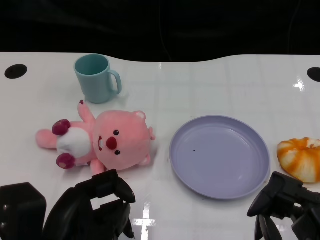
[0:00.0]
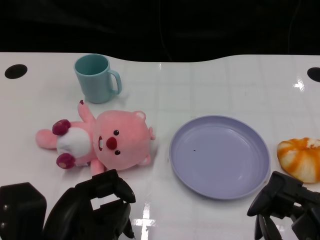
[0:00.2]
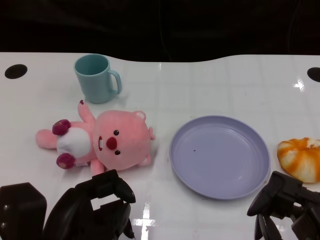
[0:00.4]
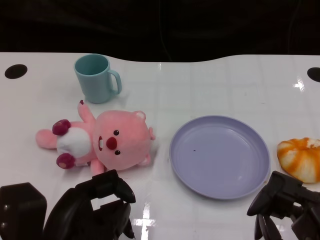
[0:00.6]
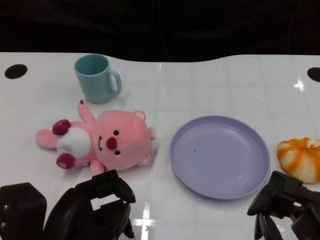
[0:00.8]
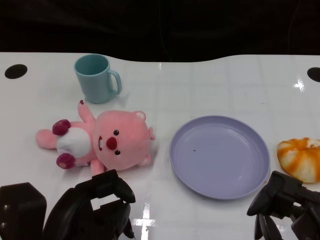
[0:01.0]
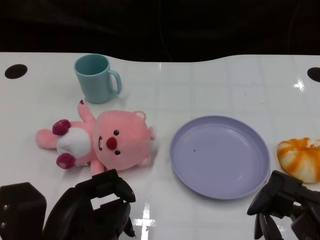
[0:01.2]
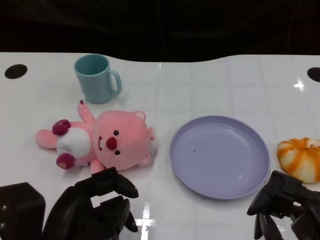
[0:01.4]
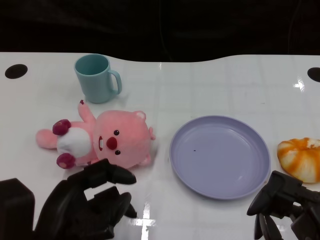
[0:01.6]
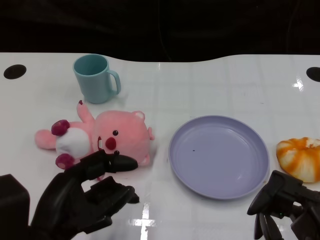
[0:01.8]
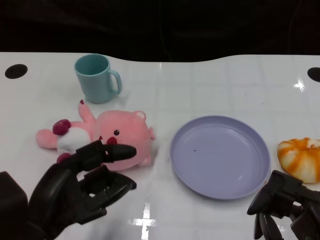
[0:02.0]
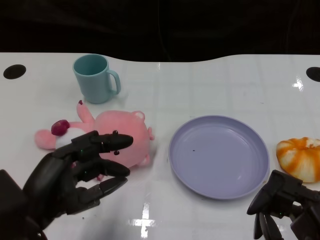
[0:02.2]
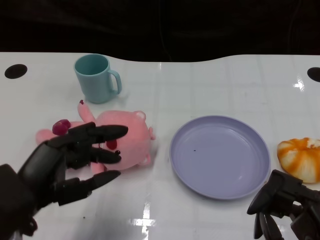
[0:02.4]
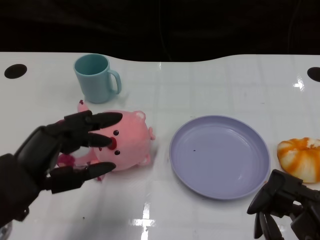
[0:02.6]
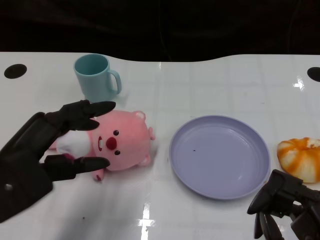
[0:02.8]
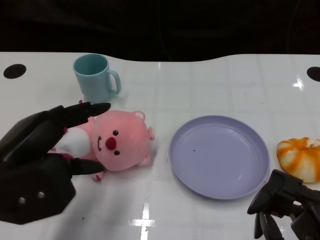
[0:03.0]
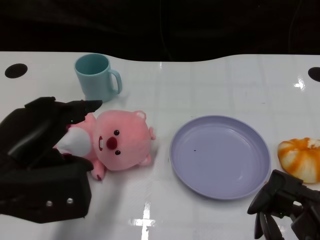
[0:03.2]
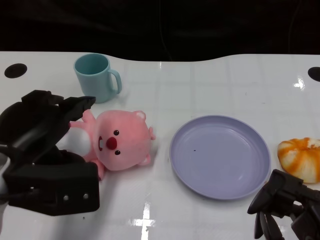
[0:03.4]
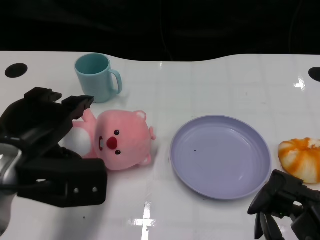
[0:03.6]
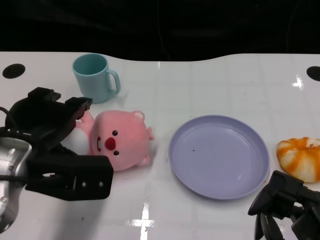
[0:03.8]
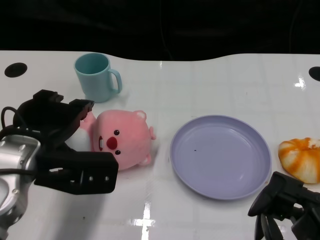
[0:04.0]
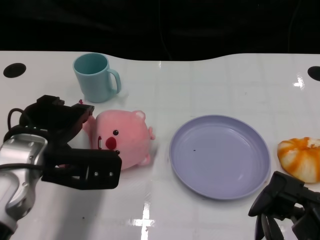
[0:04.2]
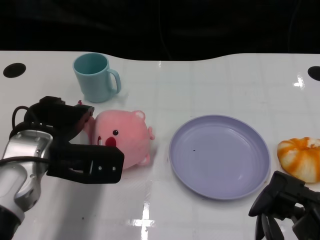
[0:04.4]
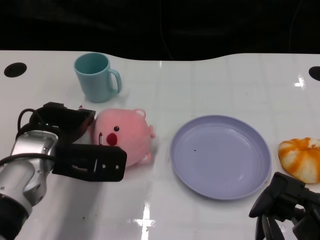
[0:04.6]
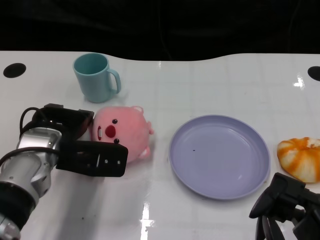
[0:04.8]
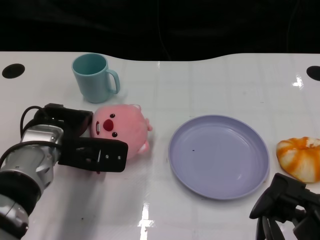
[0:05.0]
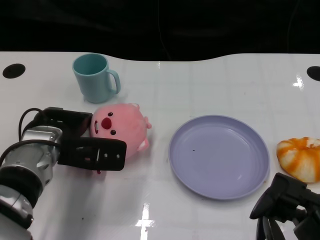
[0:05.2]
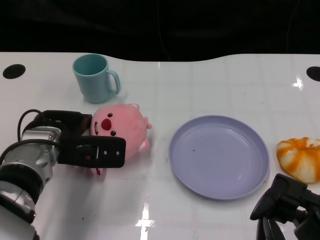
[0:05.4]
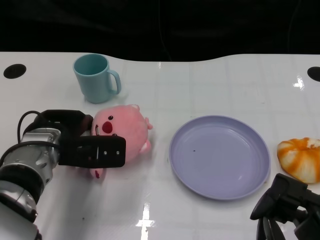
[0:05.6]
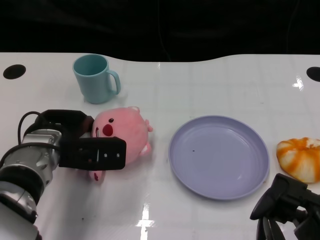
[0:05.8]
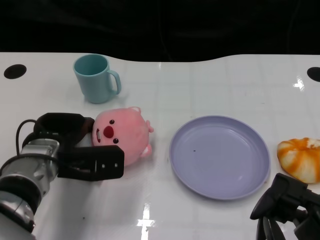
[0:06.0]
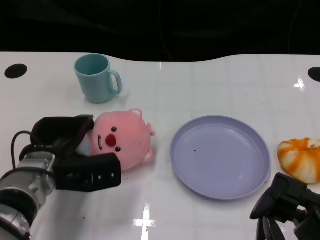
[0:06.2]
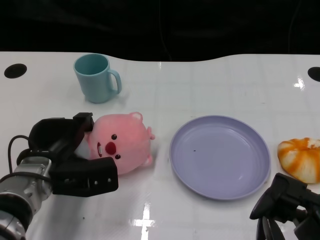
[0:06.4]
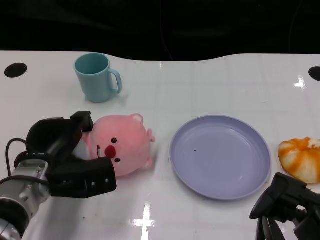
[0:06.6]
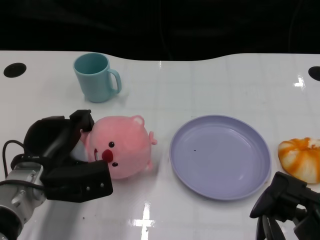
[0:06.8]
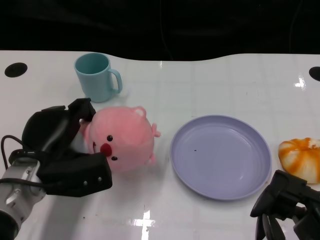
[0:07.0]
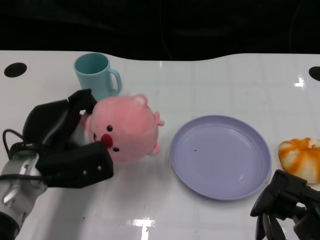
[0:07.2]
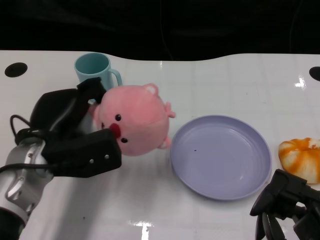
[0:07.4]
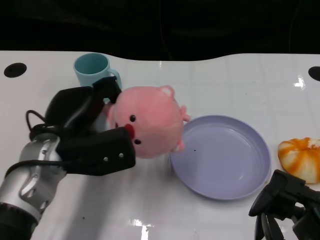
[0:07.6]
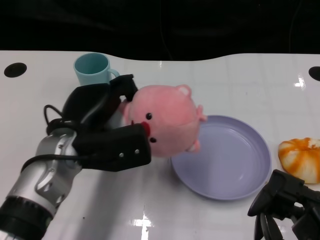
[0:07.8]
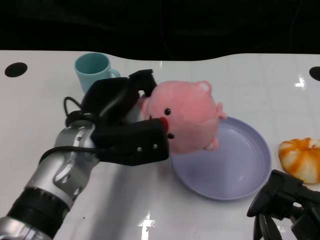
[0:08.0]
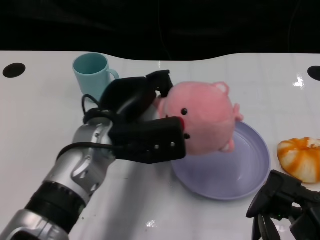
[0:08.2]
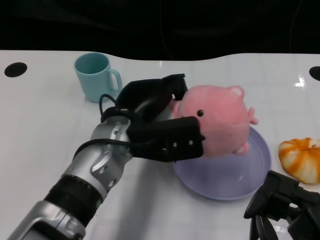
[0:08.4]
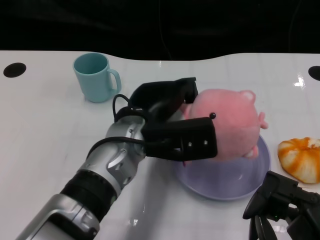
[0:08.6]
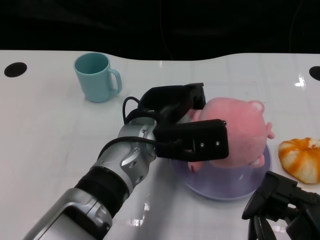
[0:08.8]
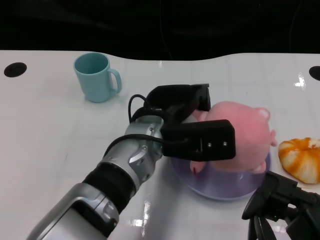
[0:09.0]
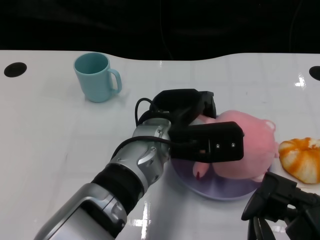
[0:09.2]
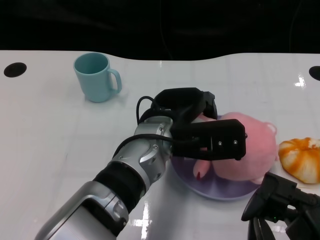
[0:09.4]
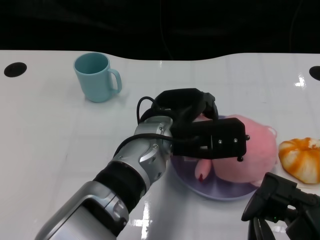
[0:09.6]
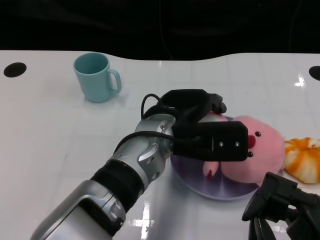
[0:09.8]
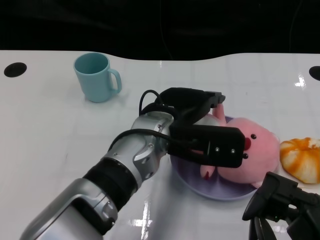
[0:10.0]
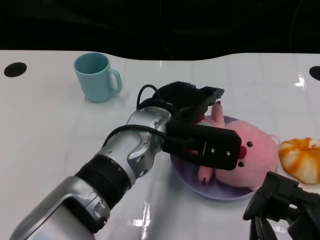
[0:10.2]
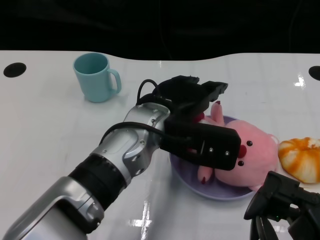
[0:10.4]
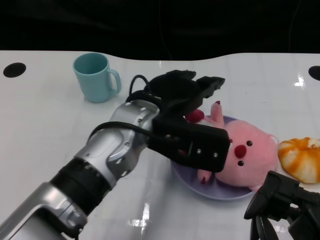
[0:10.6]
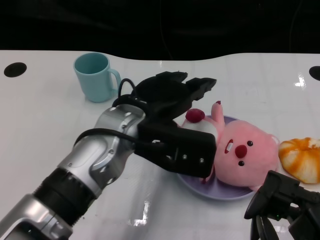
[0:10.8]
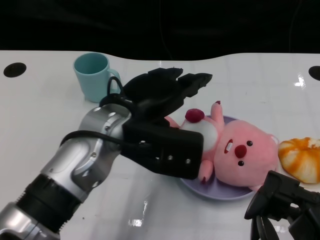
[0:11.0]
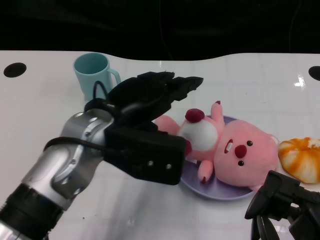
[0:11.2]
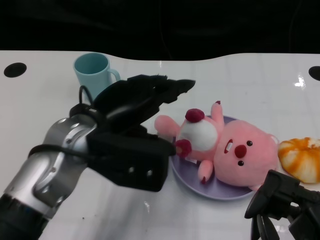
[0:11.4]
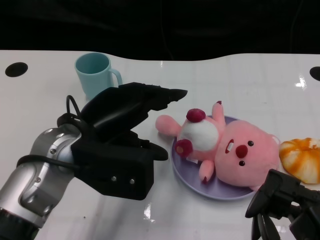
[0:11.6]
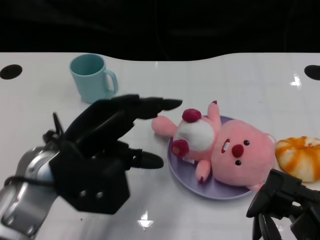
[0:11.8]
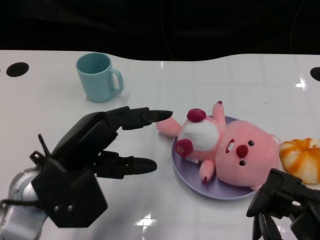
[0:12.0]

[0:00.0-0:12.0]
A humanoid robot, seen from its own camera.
Task of the whole recording: Pick up the doll on one side of the plate and place it into the plate.
Step, 0:01.4 to 0:06.8: Grasp the pink doll with the left gripper.
Step, 0:07.0 to 0:10.6: Place the pink doll into the plate with the left gripper.
0:01.6 to 0:03.0: The left hand shifts some 10 cm upward and forward.
0:03.0 to 0:04.4: The left hand is displaced forward by roughly 10 cm.
0:04.4 to 0:06.0: The left hand heads downward, covering some 5 cm.
0:06.0 to 0:07.6: The left hand changes place by roughly 5 cm.
0:07.6 to 0:09.0: The left hand shifts roughly 15 cm to the right.
0:09.0 to 0:10.4: There are only small adjustments of the hands.
0:10.4 to 0:12.0: The left hand moves to the left and backward, roughly 15 cm.

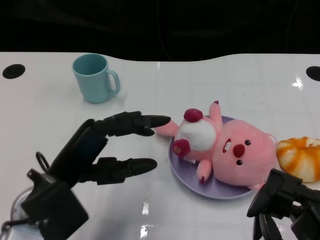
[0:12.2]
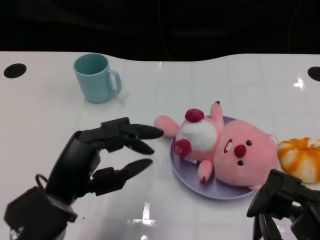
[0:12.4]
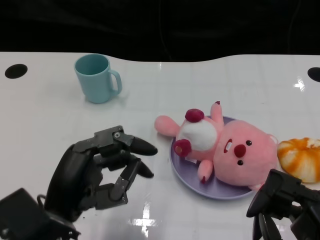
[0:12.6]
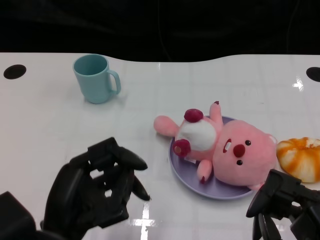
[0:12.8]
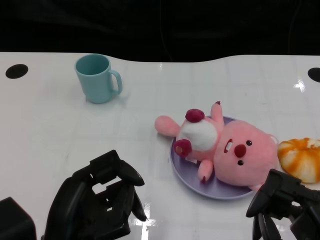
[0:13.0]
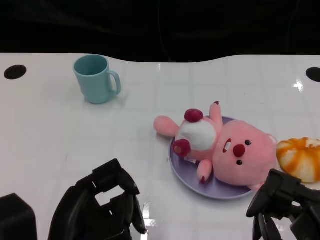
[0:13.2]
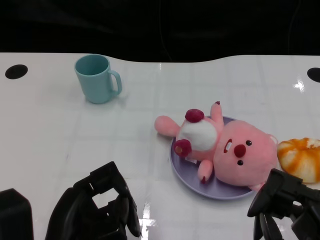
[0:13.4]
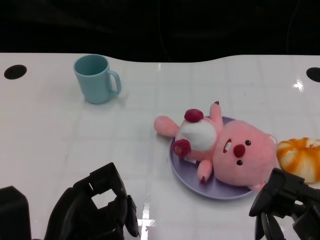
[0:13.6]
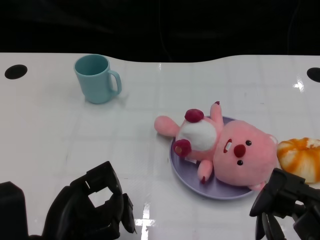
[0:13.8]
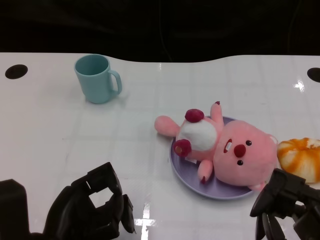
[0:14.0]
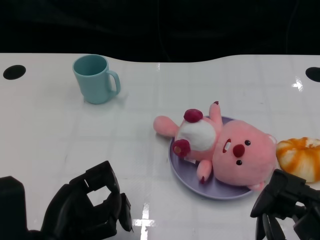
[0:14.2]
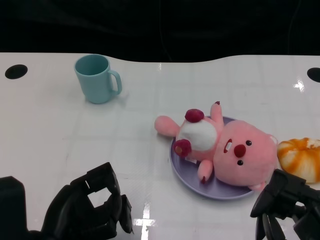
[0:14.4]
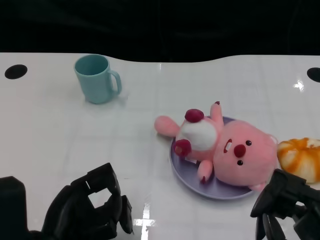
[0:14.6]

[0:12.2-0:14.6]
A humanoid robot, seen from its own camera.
Task of the whole recording: Pick up the doll on one side of the plate and place it into the plate.
0:12.2 to 0:13.4: The left hand goes roughly 10 cm backward.
0:13.4 to 0:14.6: There are only small adjustments of the hands.

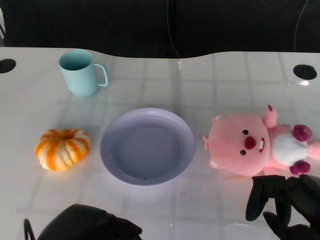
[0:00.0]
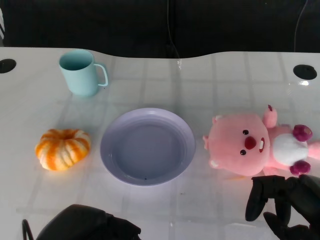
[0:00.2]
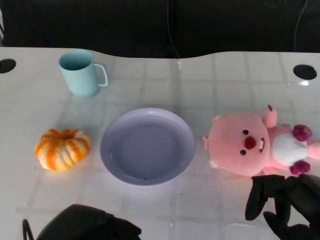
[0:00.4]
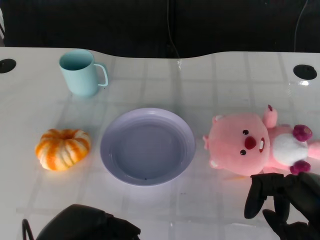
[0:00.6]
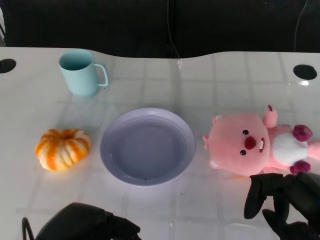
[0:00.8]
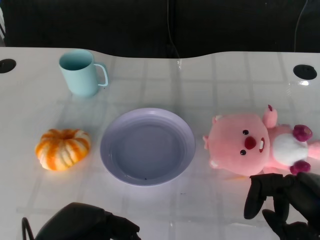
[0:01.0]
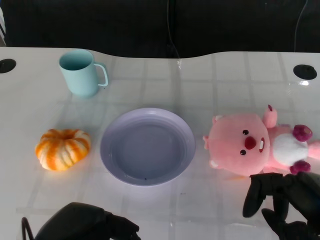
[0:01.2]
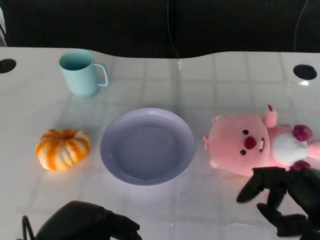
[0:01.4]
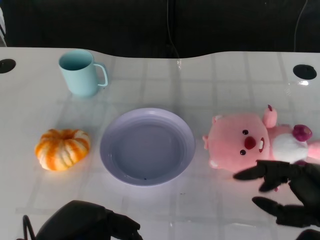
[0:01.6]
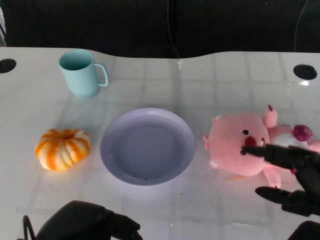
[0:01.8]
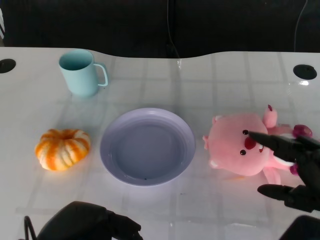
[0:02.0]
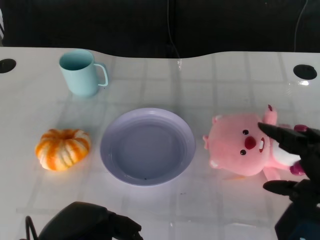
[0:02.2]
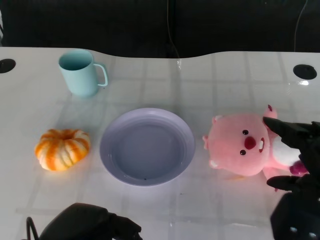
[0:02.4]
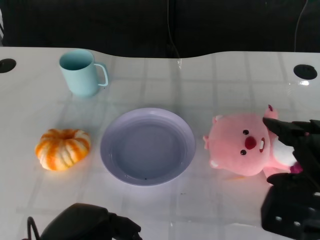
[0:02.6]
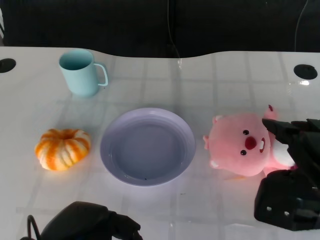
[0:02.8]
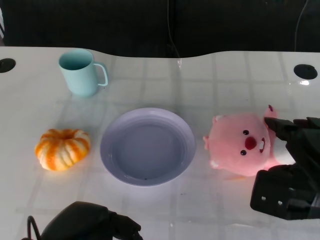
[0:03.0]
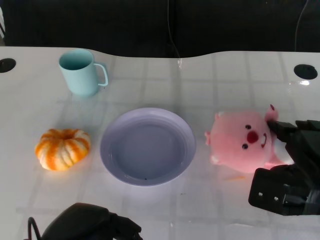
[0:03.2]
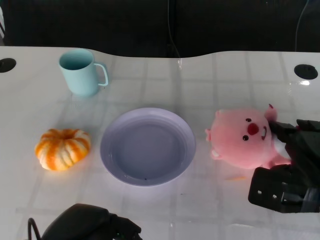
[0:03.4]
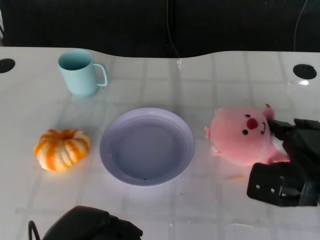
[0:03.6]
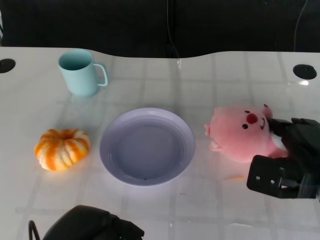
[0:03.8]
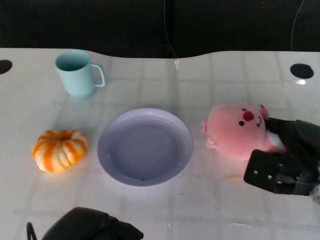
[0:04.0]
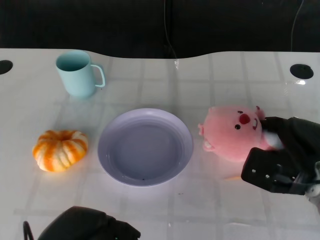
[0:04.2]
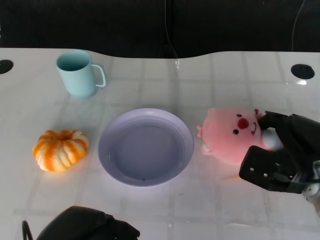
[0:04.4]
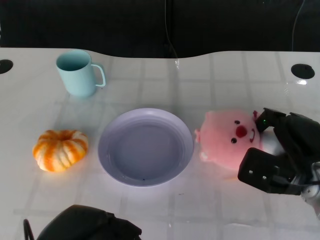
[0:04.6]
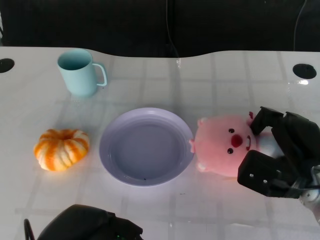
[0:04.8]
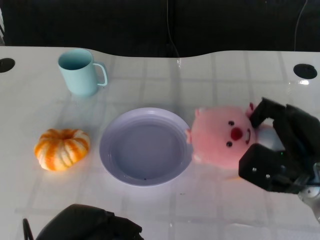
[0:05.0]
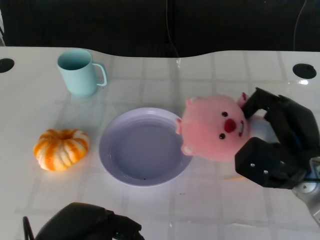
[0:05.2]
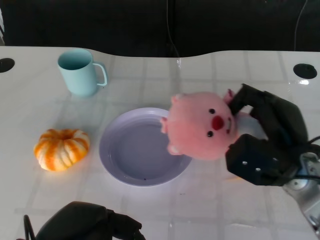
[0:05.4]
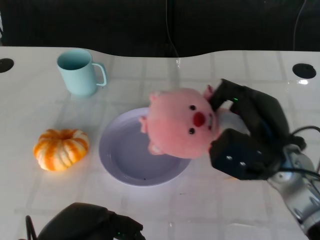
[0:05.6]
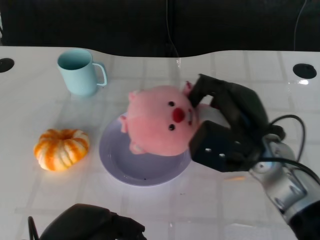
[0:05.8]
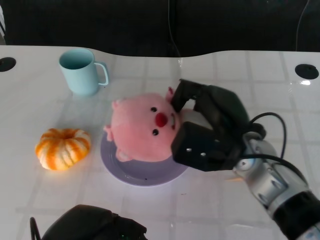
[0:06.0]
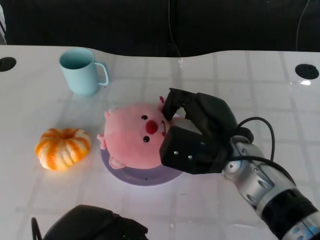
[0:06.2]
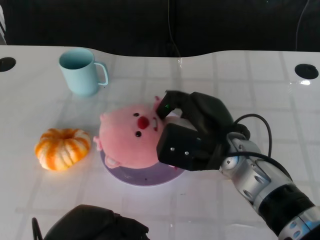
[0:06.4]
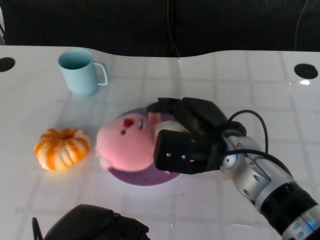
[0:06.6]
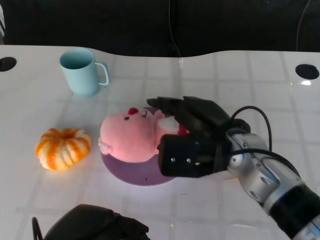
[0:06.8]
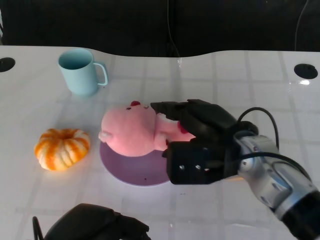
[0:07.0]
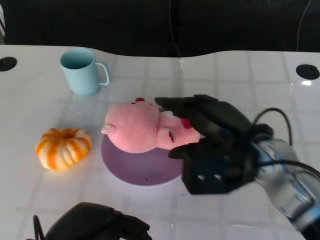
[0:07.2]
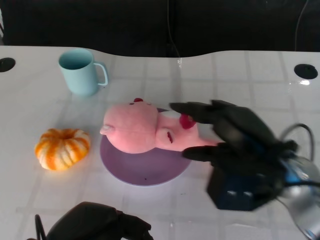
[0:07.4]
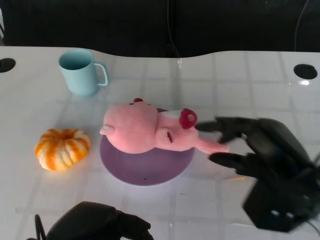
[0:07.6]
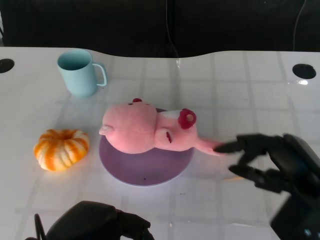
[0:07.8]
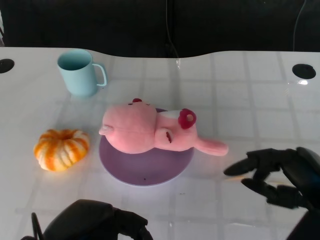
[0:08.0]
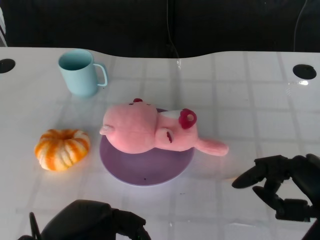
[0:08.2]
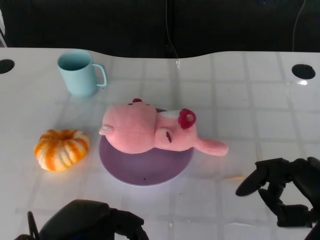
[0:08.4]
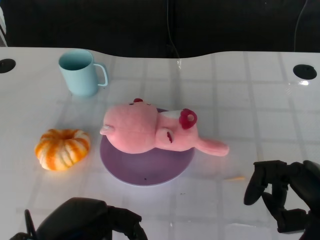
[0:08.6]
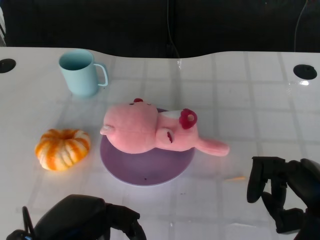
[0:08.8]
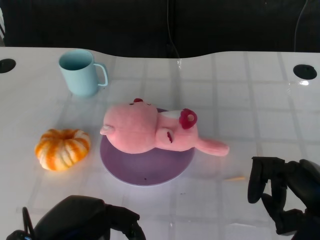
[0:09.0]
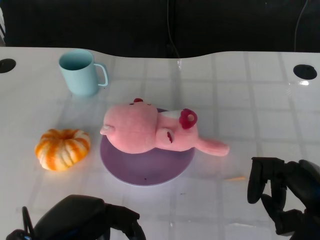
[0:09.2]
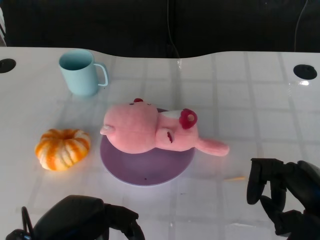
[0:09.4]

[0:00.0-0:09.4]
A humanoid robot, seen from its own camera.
Task of the whole recording: Pick up the doll on the other side of the plate and place it into the plate.
Step, 0:01.2 to 0:05.2: Grasp the pink doll with the right gripper.
Step, 0:05.4 to 0:07.6: Place the pink doll into the plate with the right gripper.
0:01.6 to 0:03.2: The right hand shifts about 10 cm forward.
0:03.2 to 0:04.8: The hands move only a little.
0:04.8 to 0:06.2: The right hand is displaced to the left by some 10 cm.
0:06.2 to 0:07.8: The right hand goes some 15 cm to the right and backward.
0:07.8 to 0:09.4: The hands move only a little.
